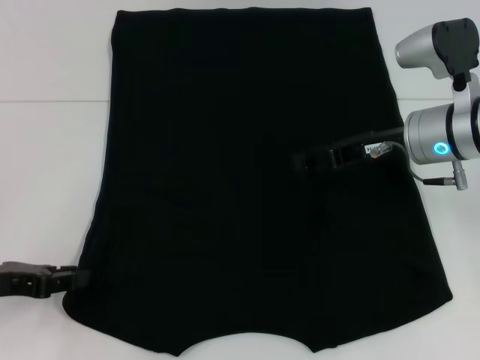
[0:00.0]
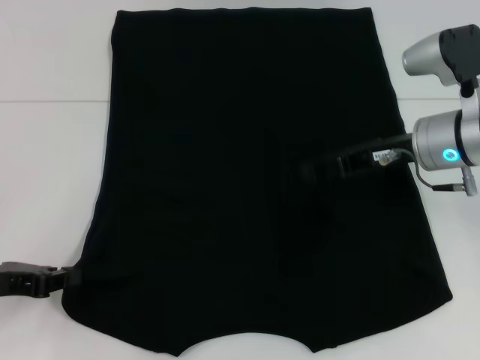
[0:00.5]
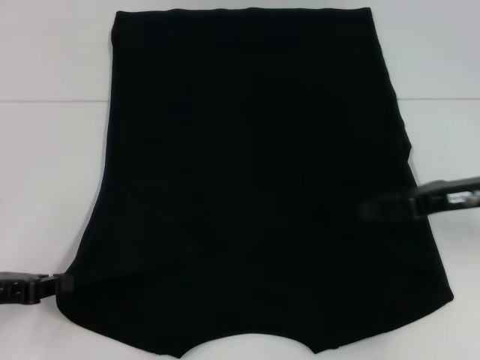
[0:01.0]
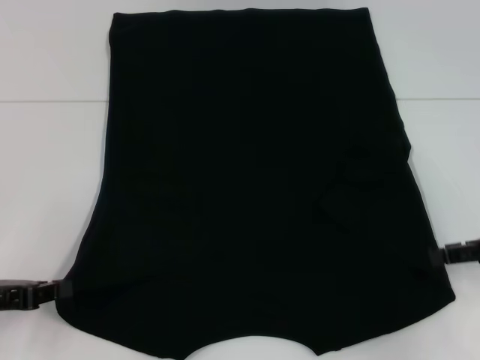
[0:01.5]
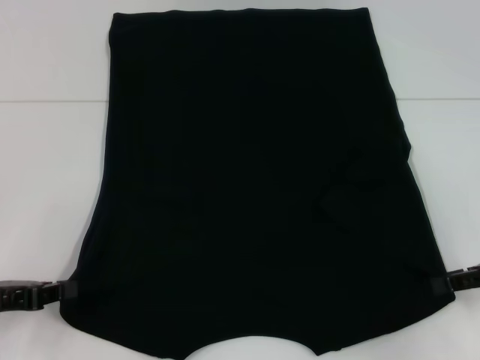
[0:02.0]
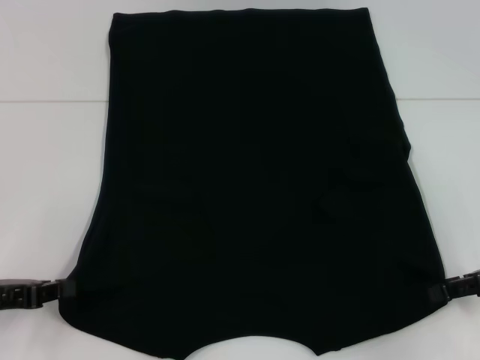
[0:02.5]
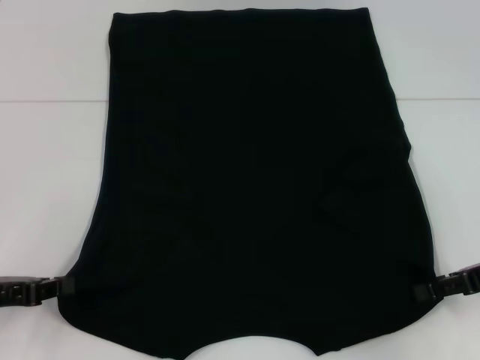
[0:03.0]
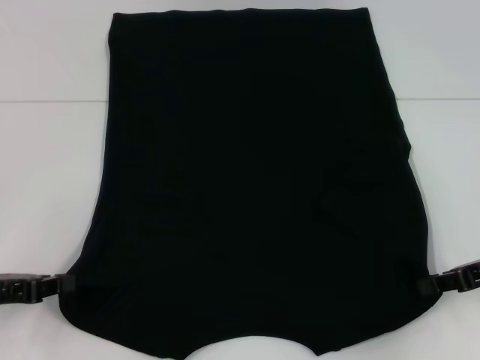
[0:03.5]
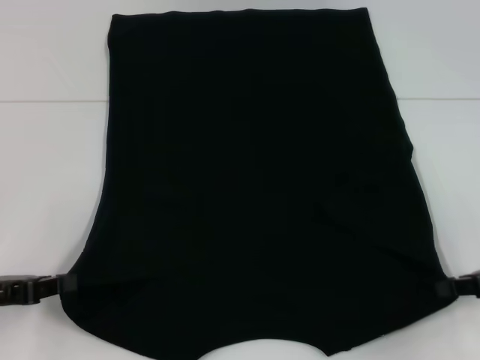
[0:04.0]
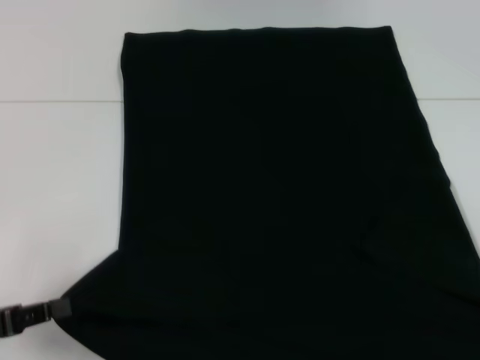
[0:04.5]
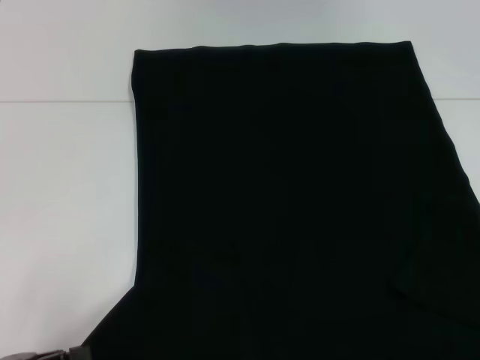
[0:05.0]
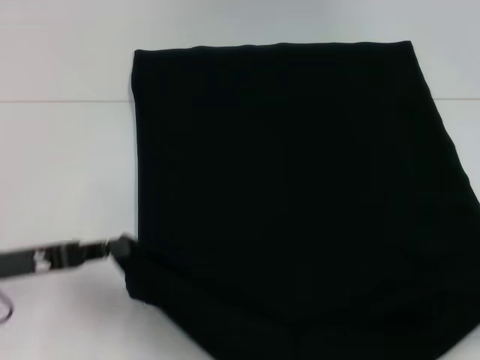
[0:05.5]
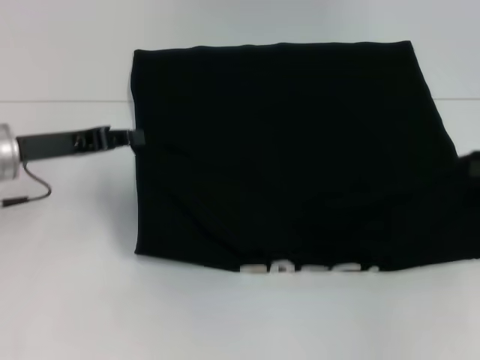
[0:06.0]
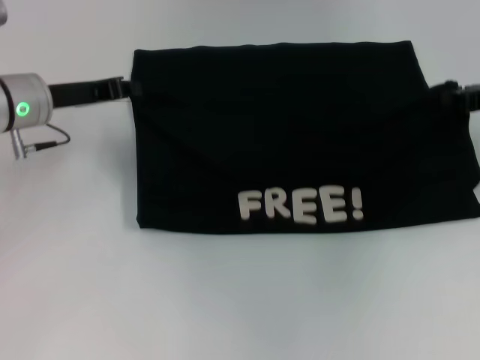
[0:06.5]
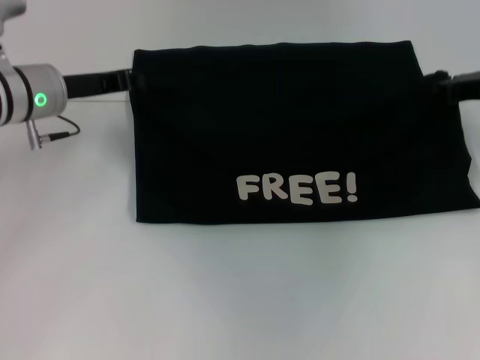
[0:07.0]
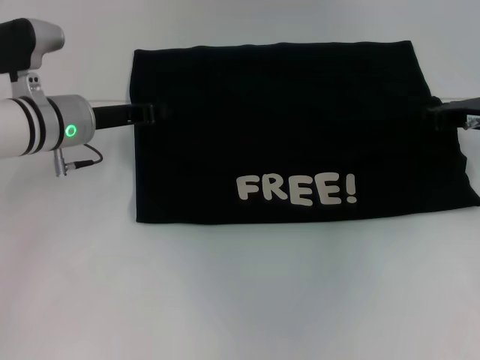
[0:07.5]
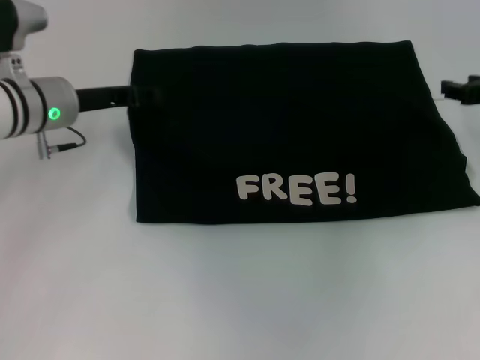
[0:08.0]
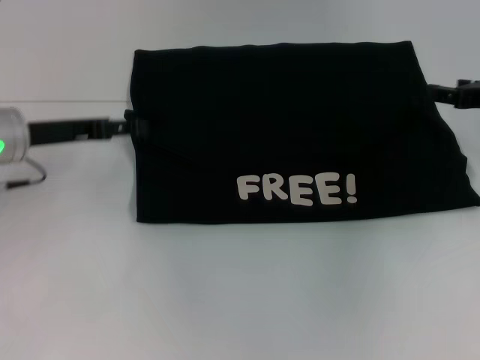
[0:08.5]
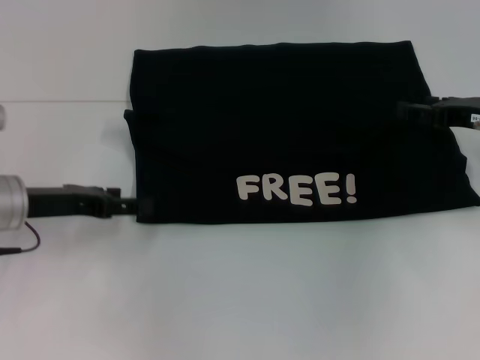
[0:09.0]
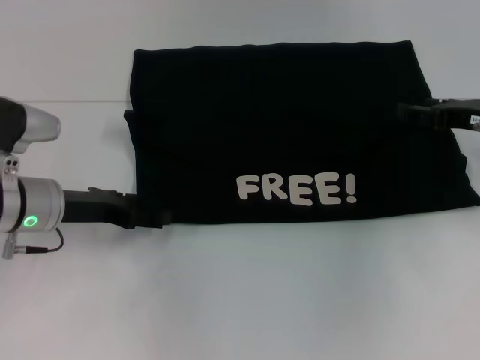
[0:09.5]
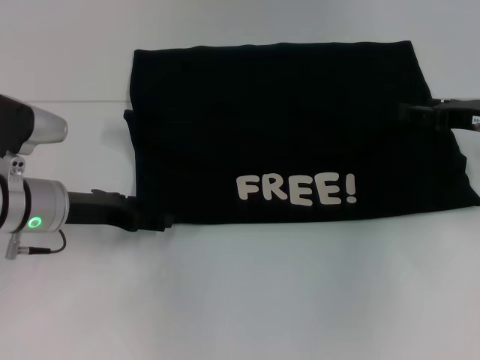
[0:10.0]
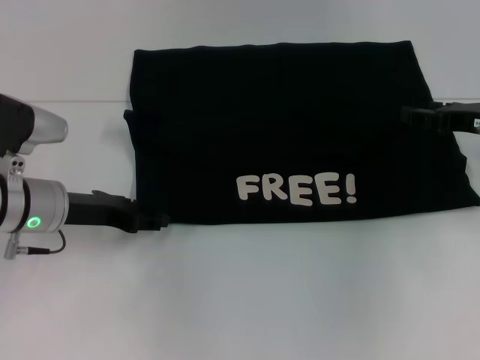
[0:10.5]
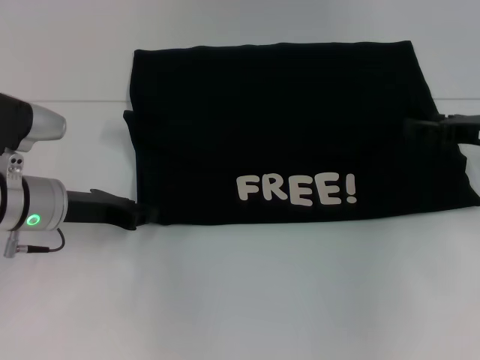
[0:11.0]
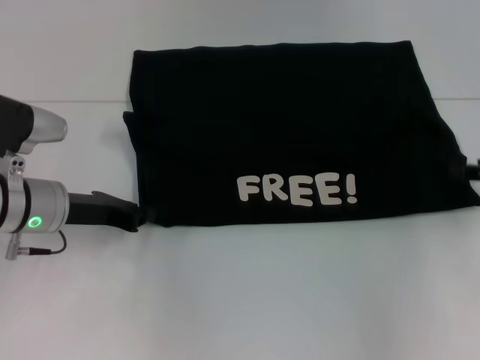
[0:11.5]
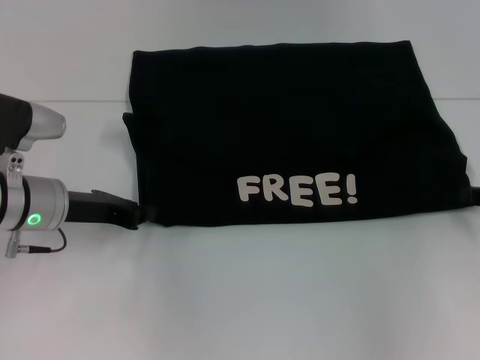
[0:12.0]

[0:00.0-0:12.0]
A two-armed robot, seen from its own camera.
Step, 0:00.0 to 0:04.0: Grab the bottom left corner with your left hand.
Step, 0:00.0 to 0:04.0: Grab the bottom right corner with your right hand.
Step, 0:04.5 to 0:08.5: Fold the clothes with your left hand.
Step, 0:04.5 to 0:08.5: Fold the clothes with your right hand.
0:00.0 to 0:02.0: The right gripper travels to the right and backward by some 20 cm, while the left gripper closes up.
0:02.0 to 0:04.0: The right gripper closes up.
0:04.0 to 0:06.0: The right gripper reaches about 15 cm backward, then returns, while the left gripper travels forward, to the right and upward by some 15 cm.
0:06.0 to 0:08.0: The left gripper is displaced forward by some 5 cm, and opens its fingers. Meanwhile the right gripper heads forward and to the left, covering roughly 10 cm.
0:08.0 to 0:10.0: The left gripper is displaced backward and downward by roughly 10 cm, and opens. The right gripper opens up.
0:10.0 to 0:12.0: The left gripper closes up; the right gripper is displaced to the right and backward by roughly 10 cm.

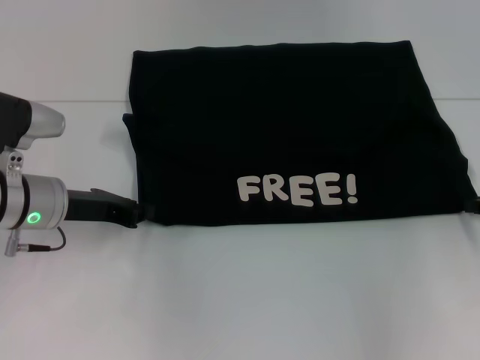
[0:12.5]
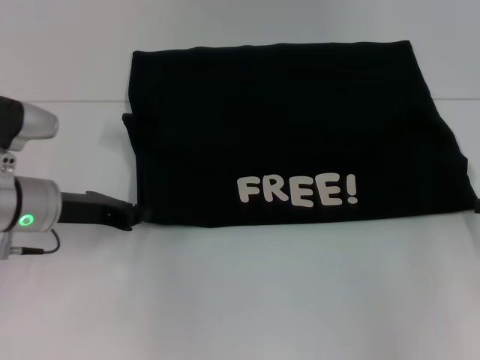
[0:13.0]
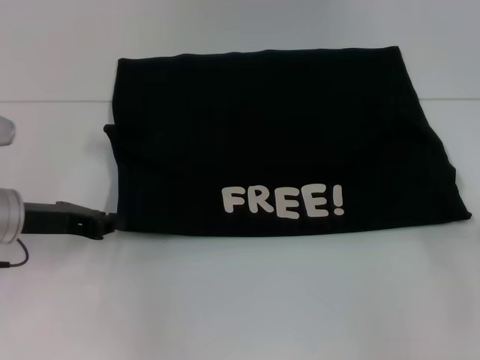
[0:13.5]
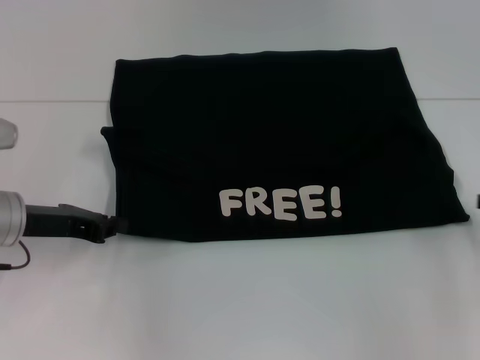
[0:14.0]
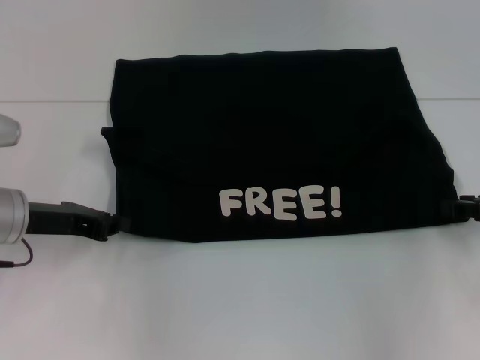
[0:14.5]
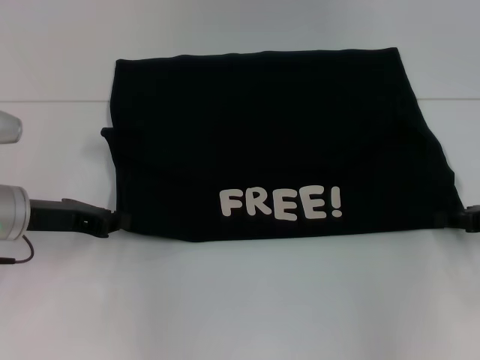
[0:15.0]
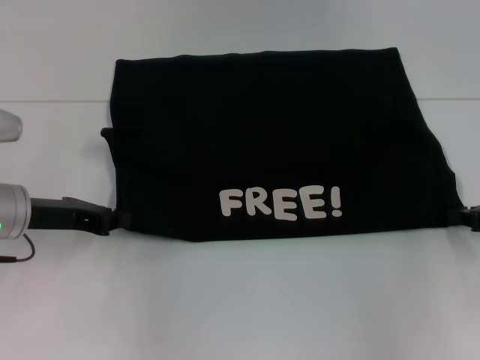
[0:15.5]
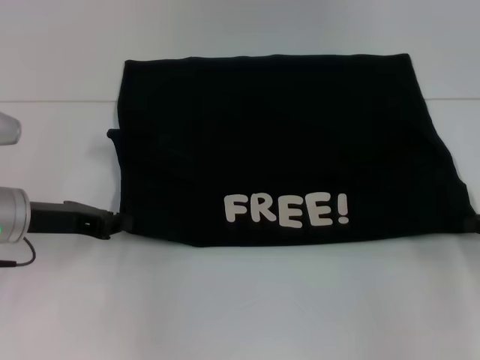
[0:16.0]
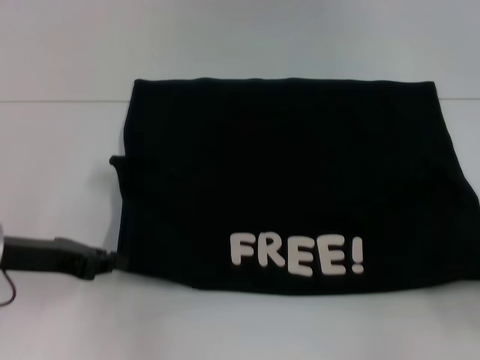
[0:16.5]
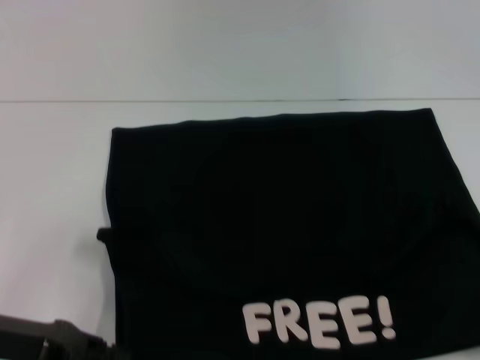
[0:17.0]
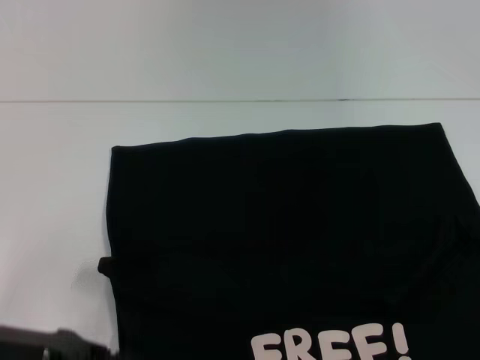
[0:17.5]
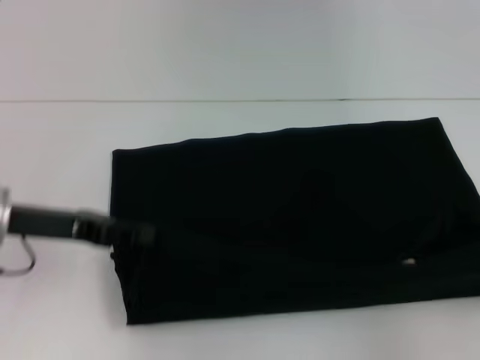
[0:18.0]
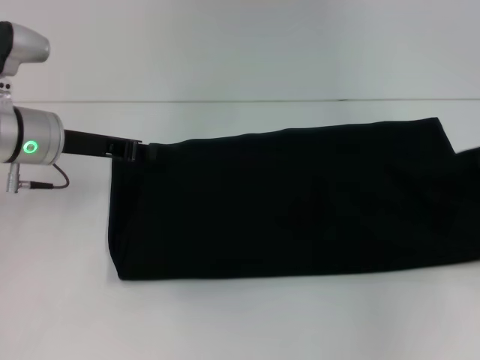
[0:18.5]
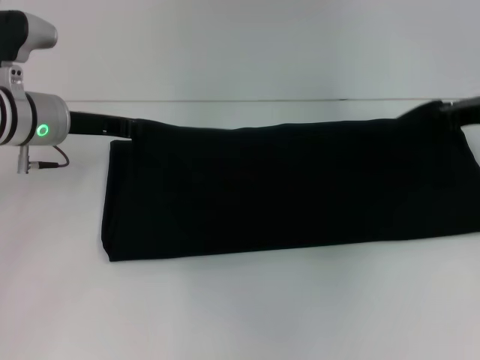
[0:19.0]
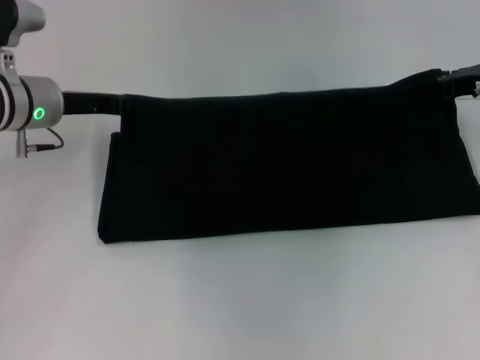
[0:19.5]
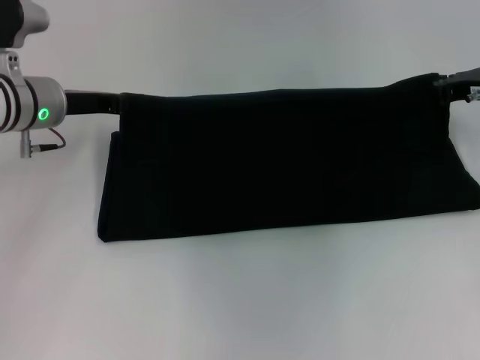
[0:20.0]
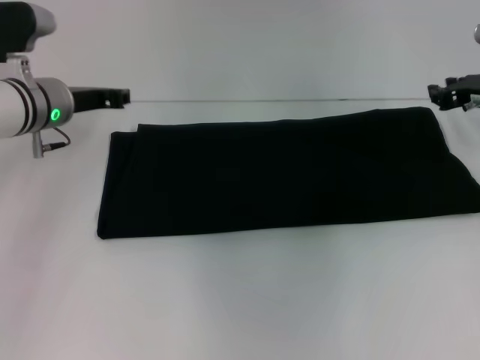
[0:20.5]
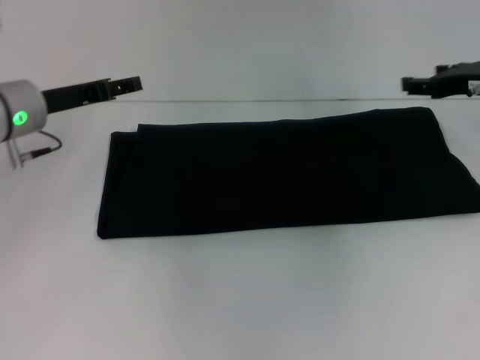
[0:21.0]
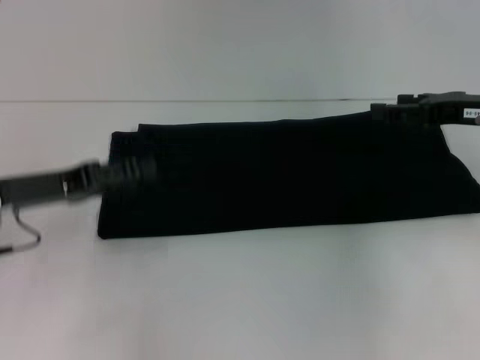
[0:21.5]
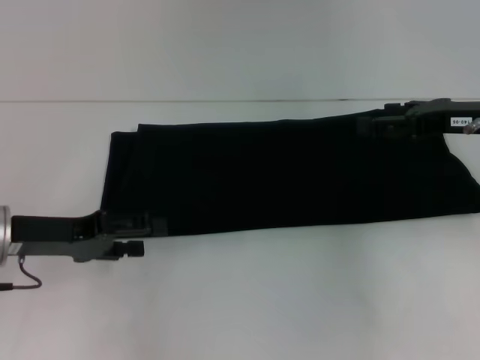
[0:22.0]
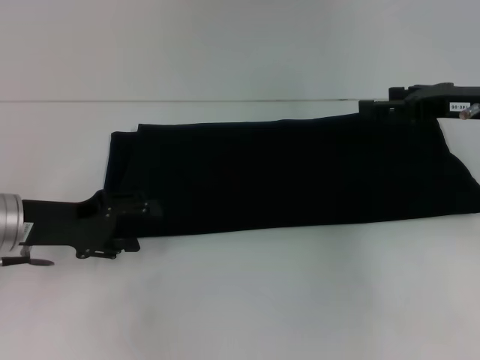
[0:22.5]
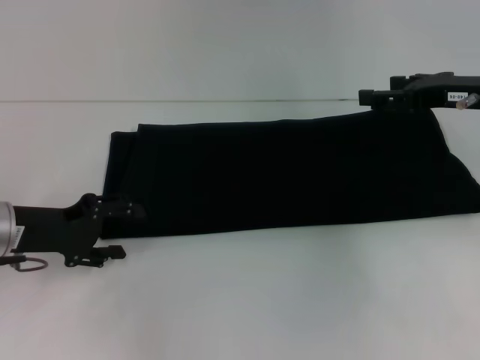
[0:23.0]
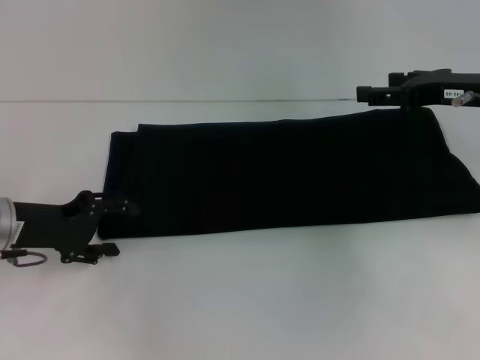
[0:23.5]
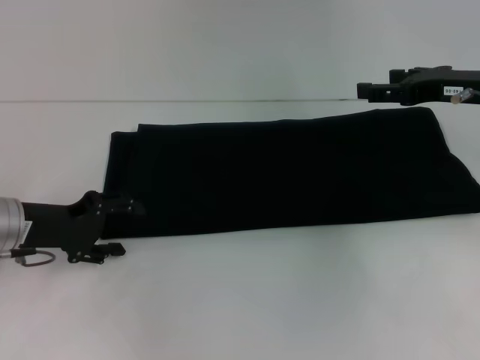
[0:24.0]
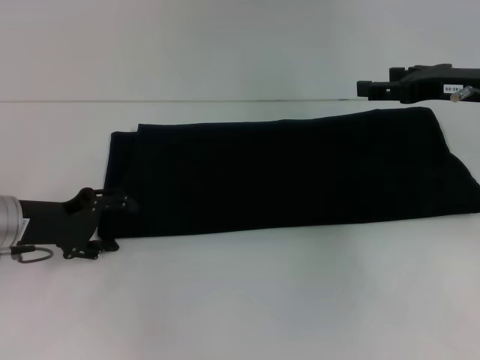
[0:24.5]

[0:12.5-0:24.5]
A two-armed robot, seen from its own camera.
Step, 0:12.5 to 0:17.0: Pull the clothes with your left hand.
Step, 0:12.5 to 0:17.0: Pull the clothes with your right hand.
Step, 0:17.5 to 0:21.5: Fold the clothes with your right hand.
0:12.5 to 0:14.5: The right gripper closes, then reopens.
0:14.5 to 0:16.5: The right gripper is displaced backward by about 10 cm, and closes its fingers.
0:16.5 to 0:18.5: The two grippers go some 10 cm forward.
0:18.5 to 0:20.5: The right gripper travels forward and to the left by some 15 cm.
0:20.5 to 0:22.5: The left gripper goes approximately 10 cm backward, and opens, while the right gripper shifts by roughly 5 cm, and opens its fingers.
0:22.5 to 0:24.5: The grippers make only small movements.

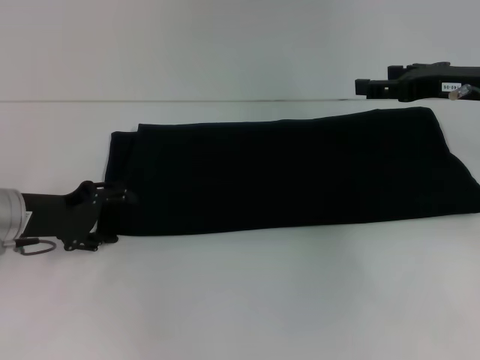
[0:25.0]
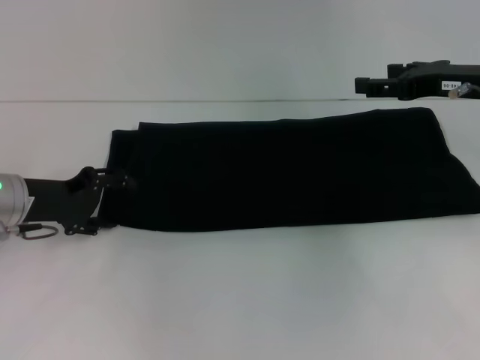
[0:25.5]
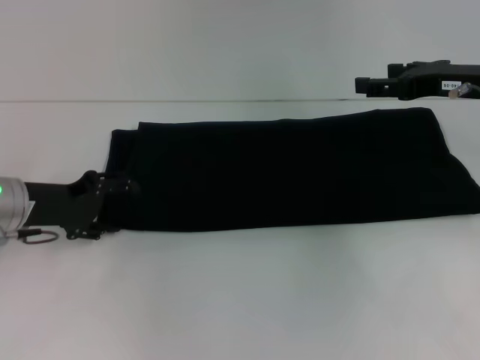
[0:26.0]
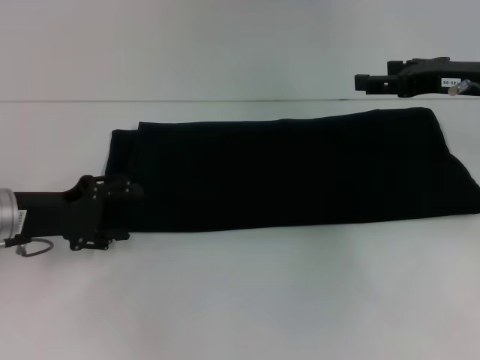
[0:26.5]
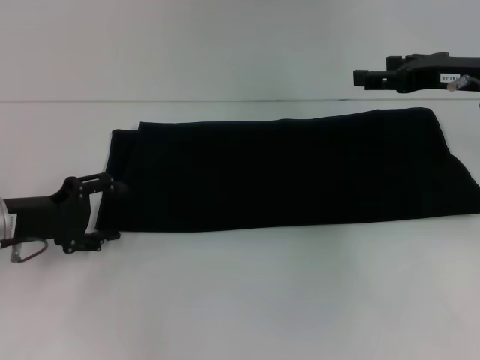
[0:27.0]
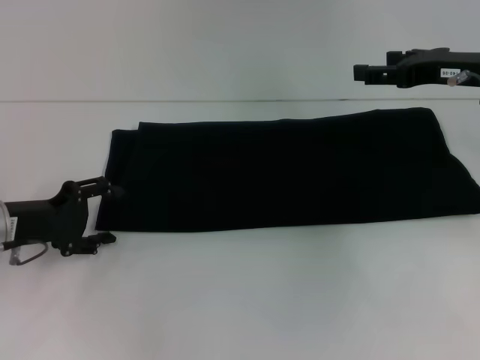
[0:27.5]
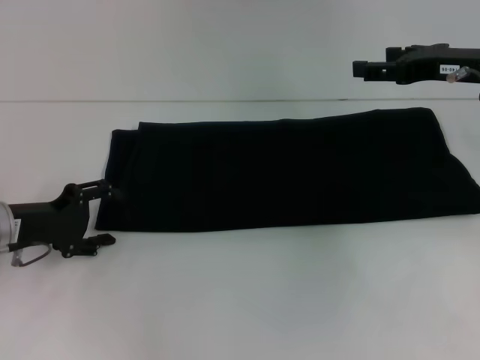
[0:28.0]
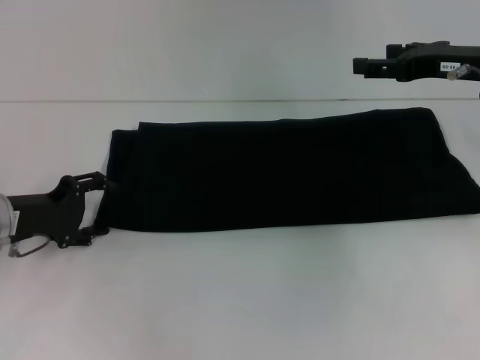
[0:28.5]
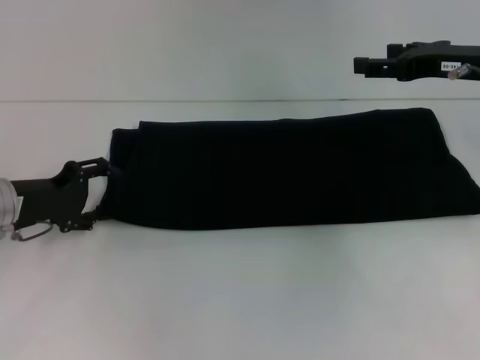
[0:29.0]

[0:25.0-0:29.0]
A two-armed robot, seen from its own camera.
0:25.0 to 0:29.0: The grippers stay close to where they were, moving slightly.
